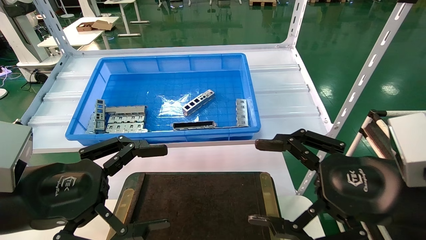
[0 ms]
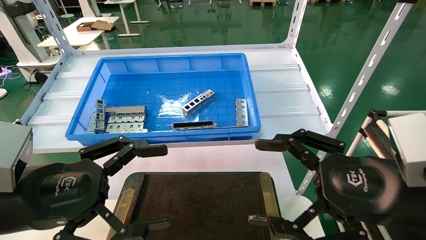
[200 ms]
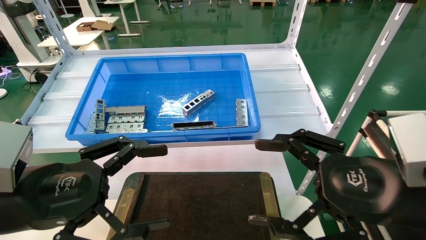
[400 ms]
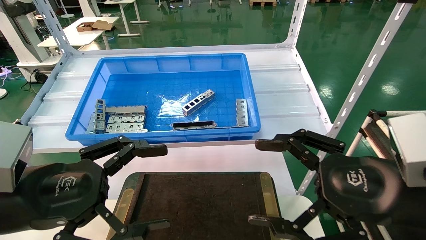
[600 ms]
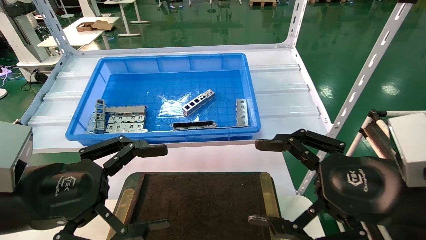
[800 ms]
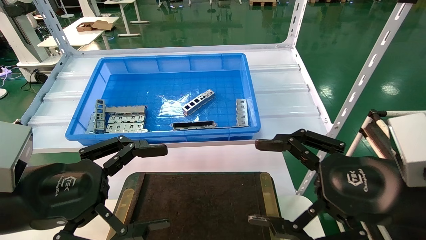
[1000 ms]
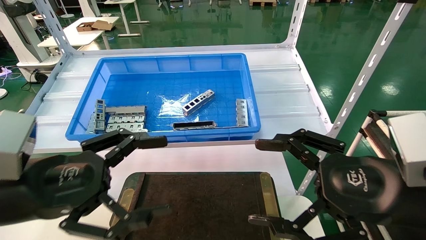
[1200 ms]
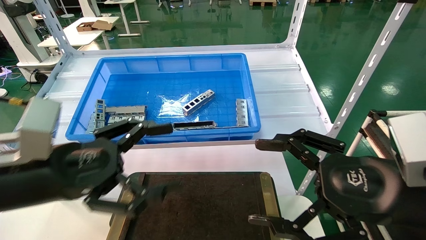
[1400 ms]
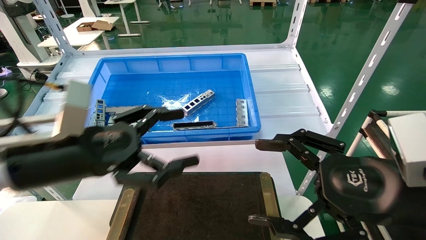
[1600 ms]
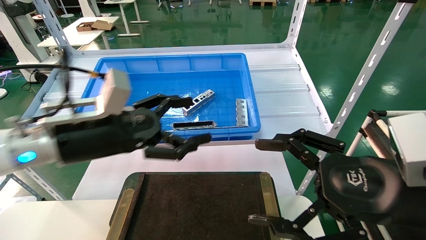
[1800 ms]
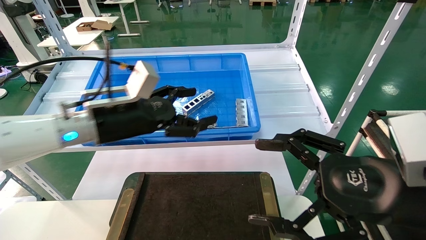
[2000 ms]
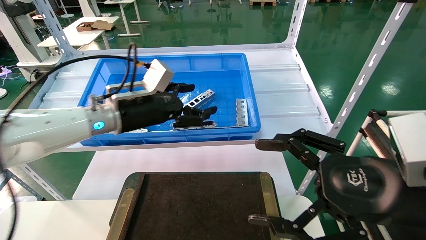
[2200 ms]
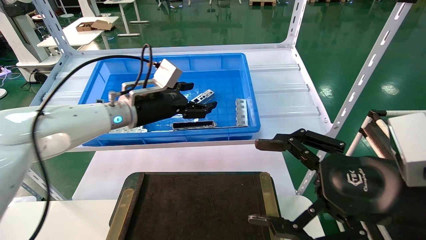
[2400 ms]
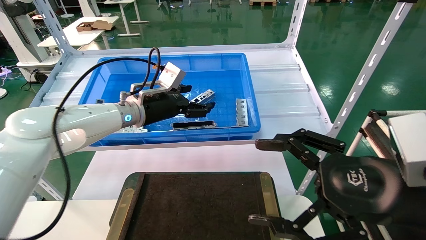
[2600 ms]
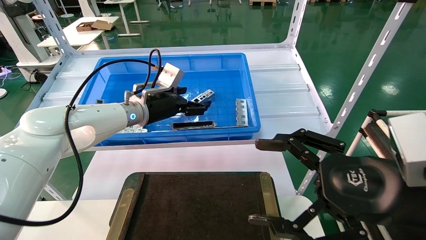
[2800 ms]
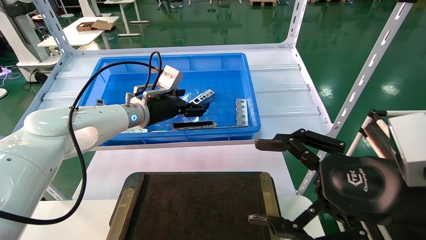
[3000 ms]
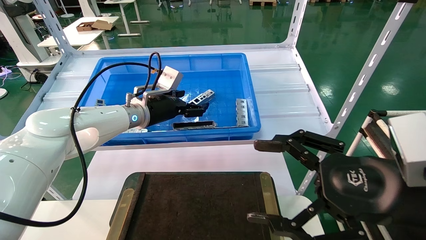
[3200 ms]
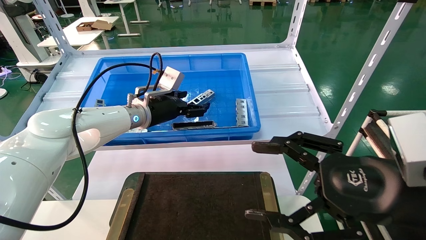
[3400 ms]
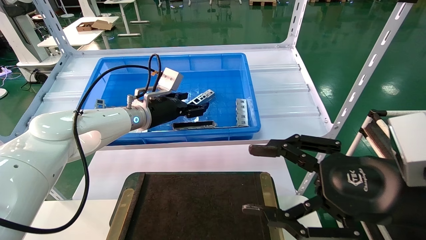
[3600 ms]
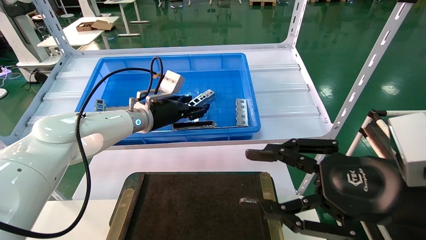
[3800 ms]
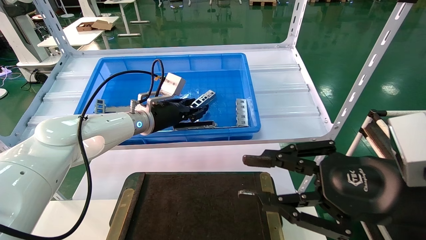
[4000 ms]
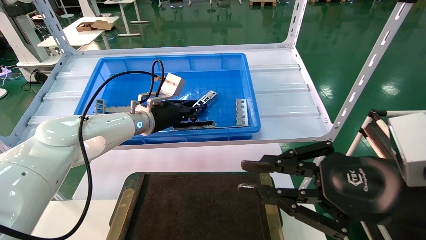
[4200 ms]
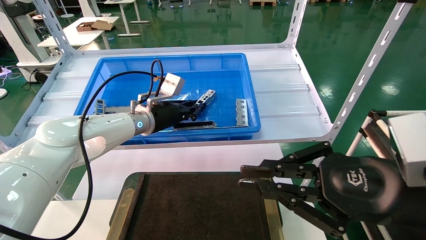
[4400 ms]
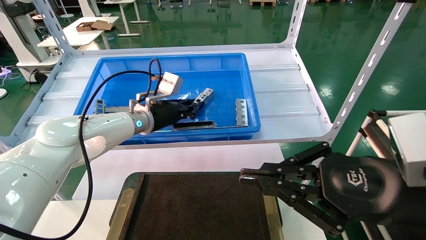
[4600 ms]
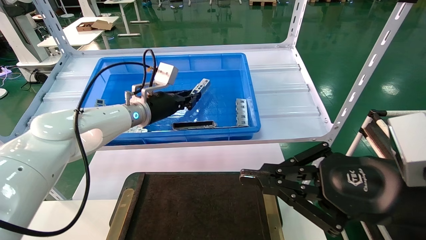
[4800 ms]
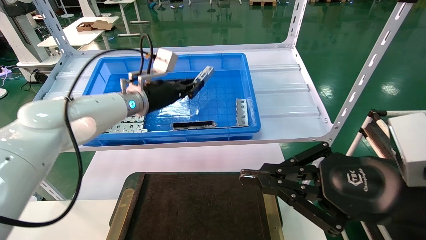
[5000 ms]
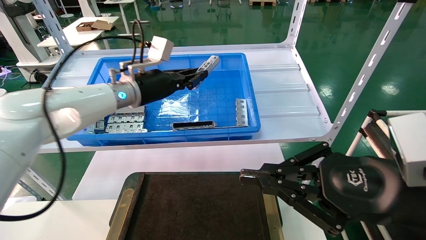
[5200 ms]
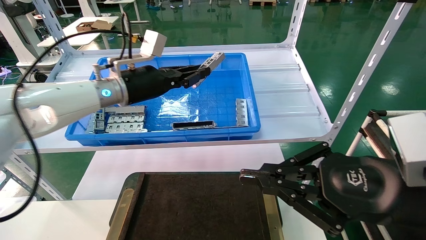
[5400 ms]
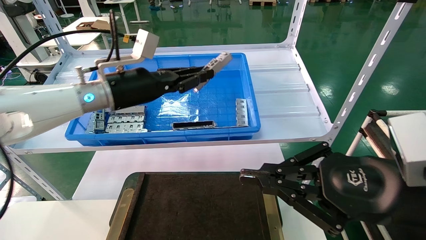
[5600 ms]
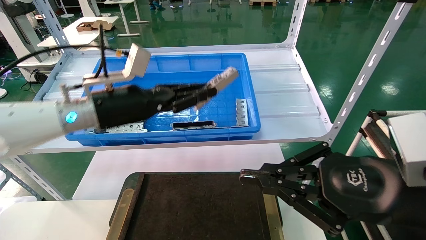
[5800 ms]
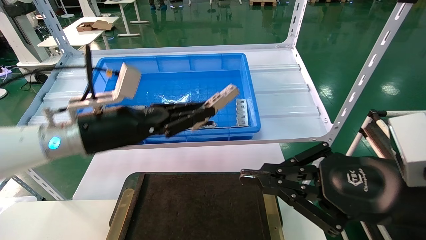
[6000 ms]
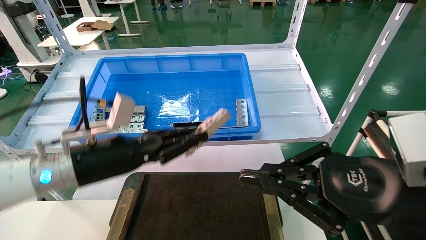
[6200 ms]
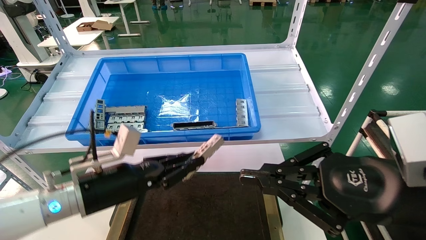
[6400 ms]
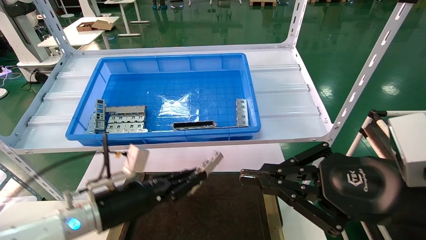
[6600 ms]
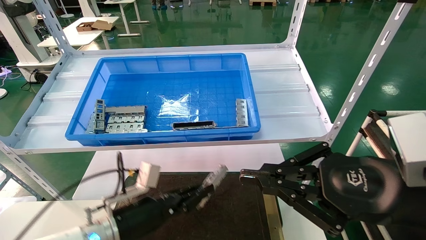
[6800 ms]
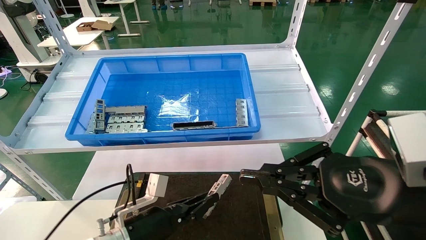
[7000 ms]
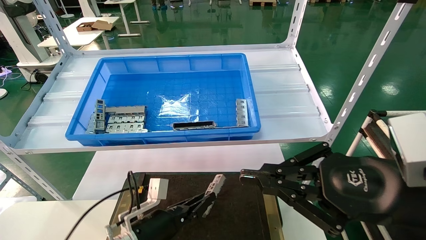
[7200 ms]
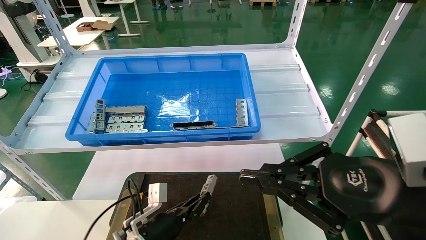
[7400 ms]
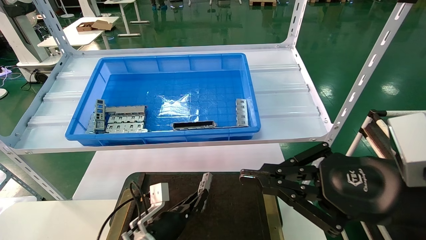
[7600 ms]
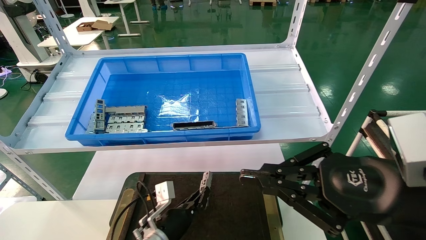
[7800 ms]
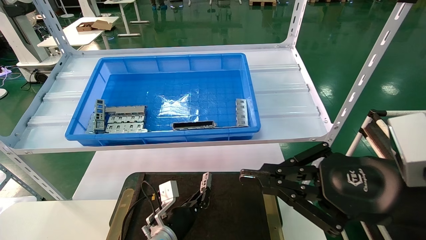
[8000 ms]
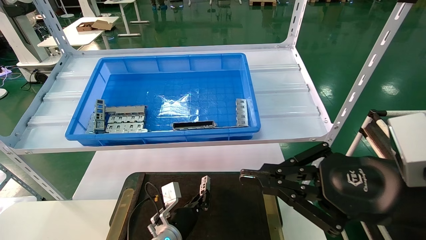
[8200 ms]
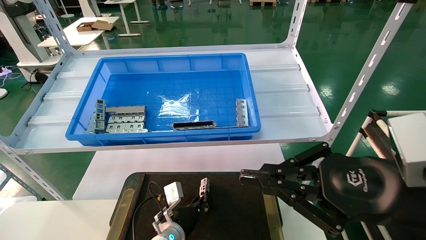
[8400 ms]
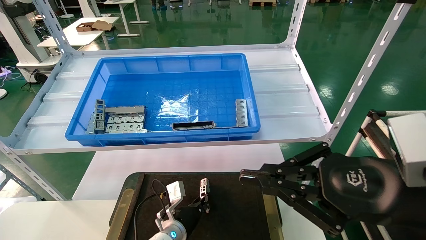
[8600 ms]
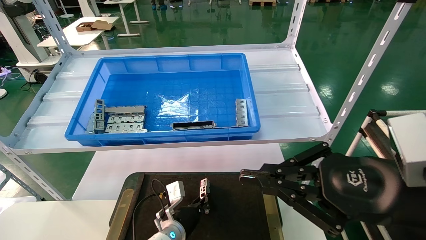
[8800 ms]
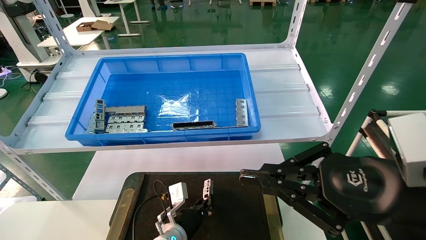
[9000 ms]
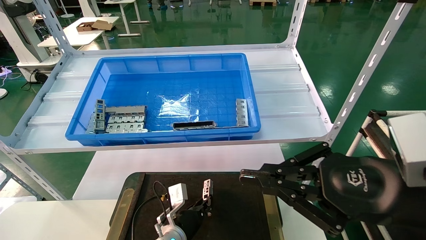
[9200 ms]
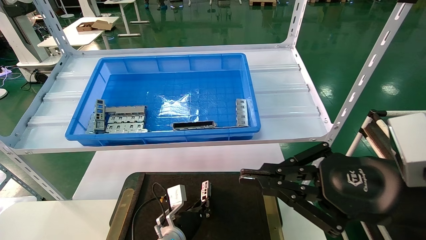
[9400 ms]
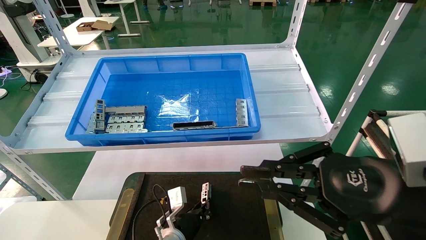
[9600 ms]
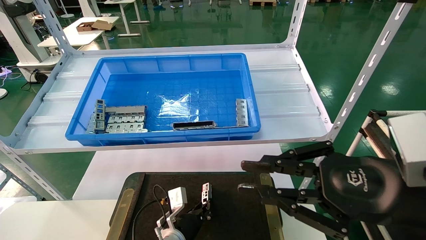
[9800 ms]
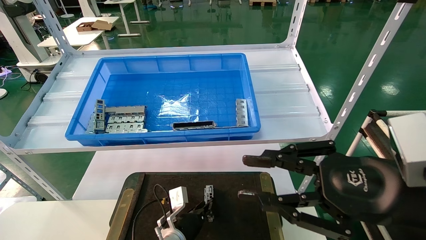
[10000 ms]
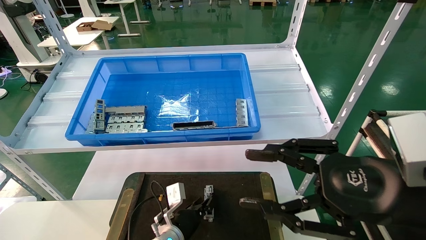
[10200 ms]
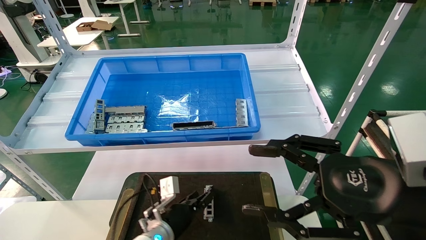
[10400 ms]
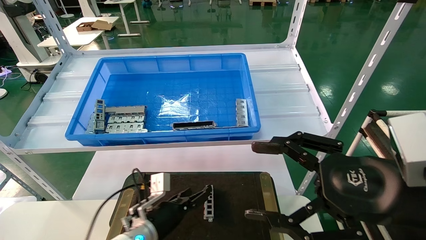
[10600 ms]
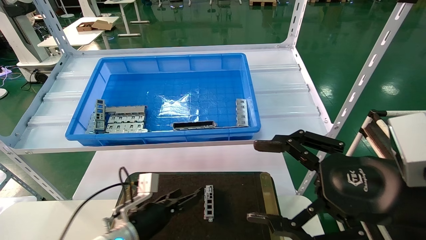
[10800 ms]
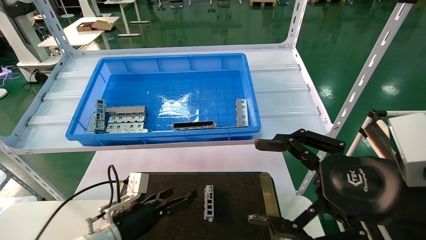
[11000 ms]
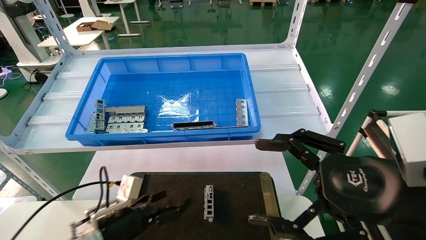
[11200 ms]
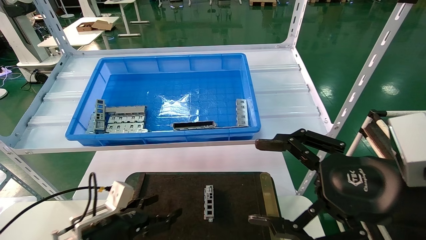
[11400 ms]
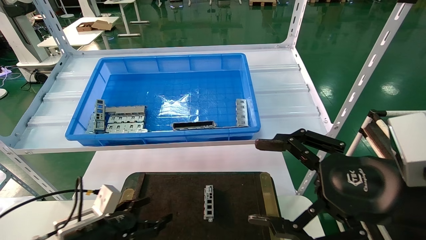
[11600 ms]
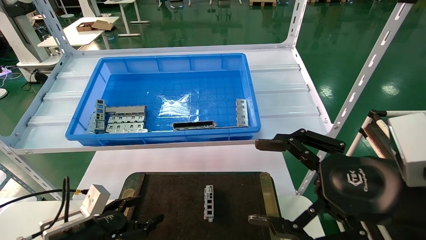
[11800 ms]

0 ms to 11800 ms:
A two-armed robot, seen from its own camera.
Task of the whole recording: Grasp the part with one hand and place it on the black container.
Step, 1400 ms to 4200 ms: Pick up the front USB bracket from the feeding area.
Step, 4400 ms to 9800 ms: Place the front USB bracket into the box.
0 ms to 1400 ms: There are only small adjustments of the grippers.
1400 ms to 3000 ms: The left gripper travels forward by roughly 25 cm.
3000 ms to 4400 ms: The right gripper closes its fingers. The left gripper closes its fingers.
4400 ms to 6000 ms: The left gripper travels backward by roughly 15 cm.
6000 ms to 7400 ms: The left gripper shifts about 25 cm downward.
7400 ms to 8800 ms: The left gripper shifts about 10 cm forward and to the right.
8800 ms to 10400 ms: The left gripper changes place by about 5 cm, while the right gripper opens.
10400 ms to 11800 ms: The right gripper opens up; the left gripper travels to the left and backward by about 20 cm, and opens.
